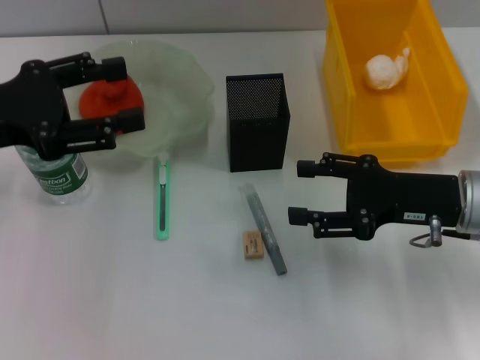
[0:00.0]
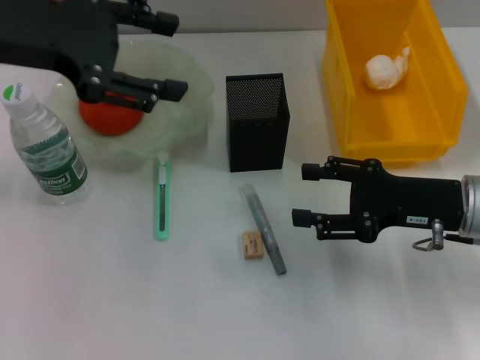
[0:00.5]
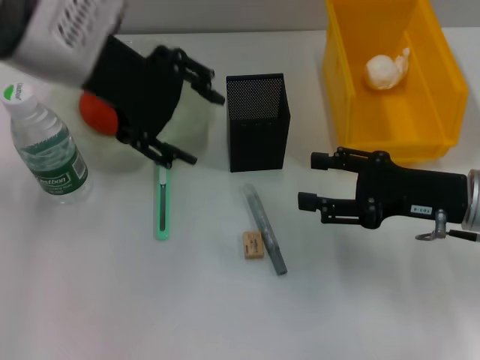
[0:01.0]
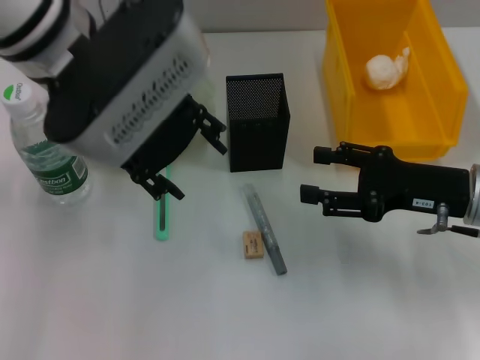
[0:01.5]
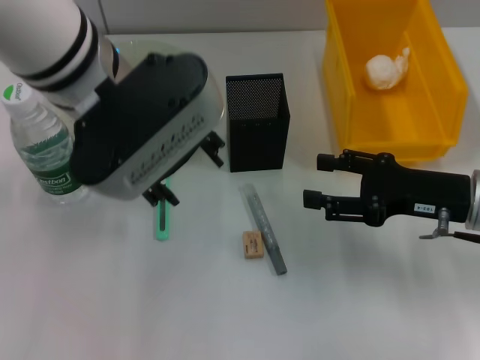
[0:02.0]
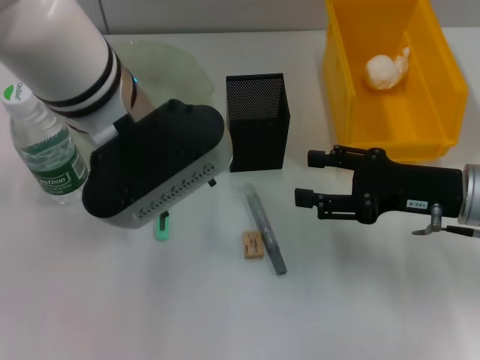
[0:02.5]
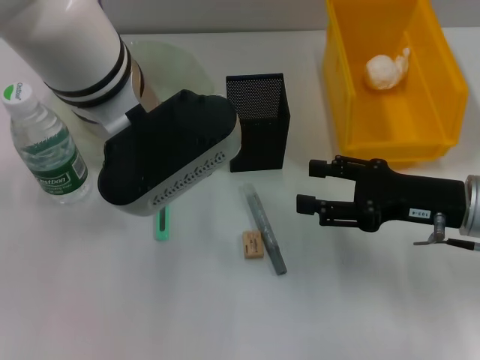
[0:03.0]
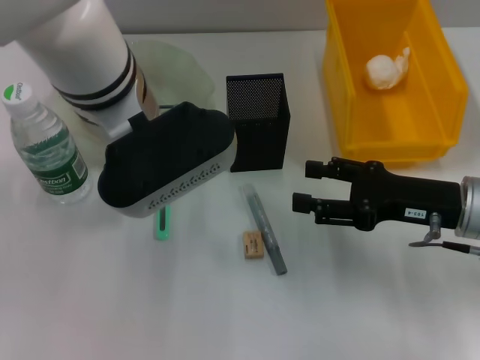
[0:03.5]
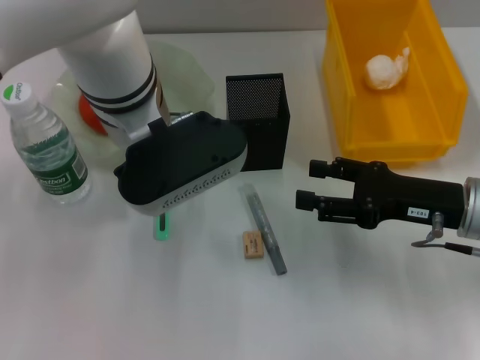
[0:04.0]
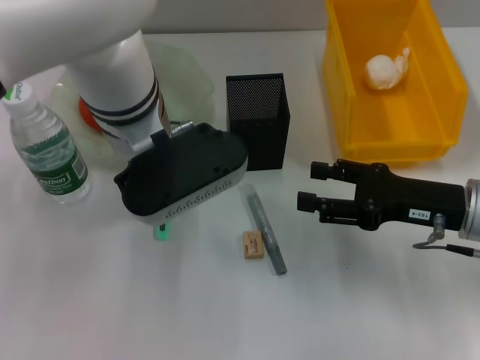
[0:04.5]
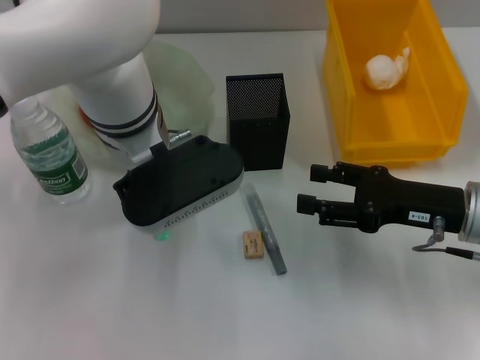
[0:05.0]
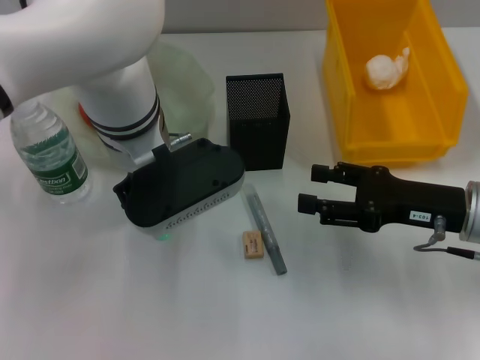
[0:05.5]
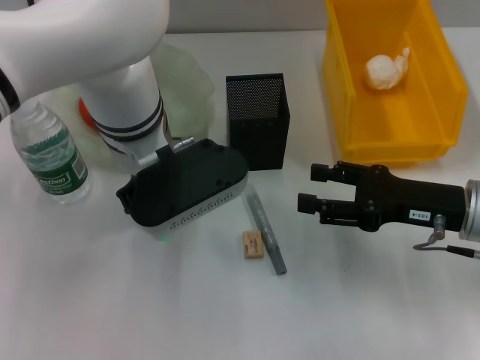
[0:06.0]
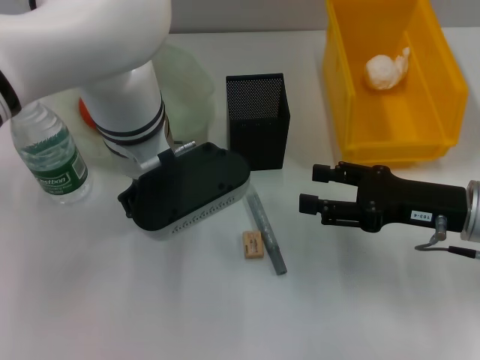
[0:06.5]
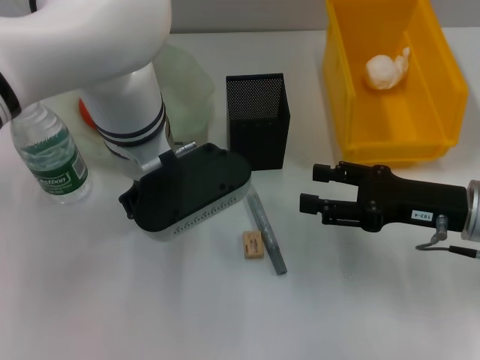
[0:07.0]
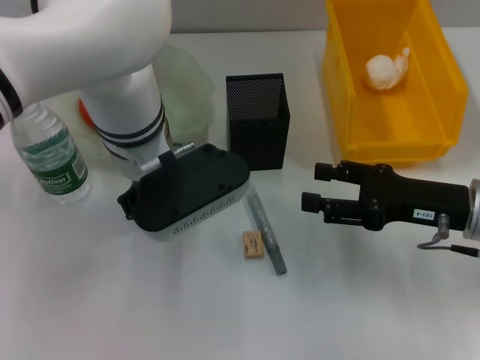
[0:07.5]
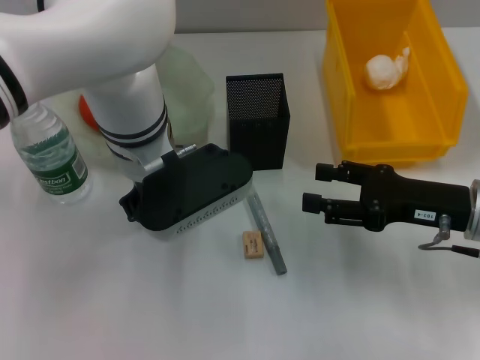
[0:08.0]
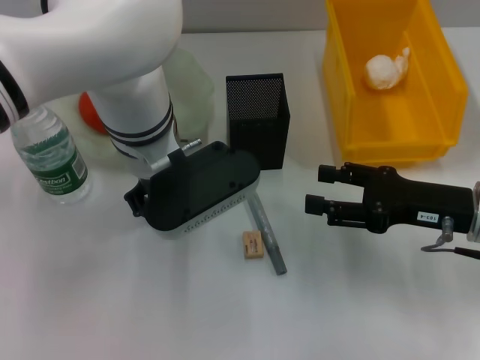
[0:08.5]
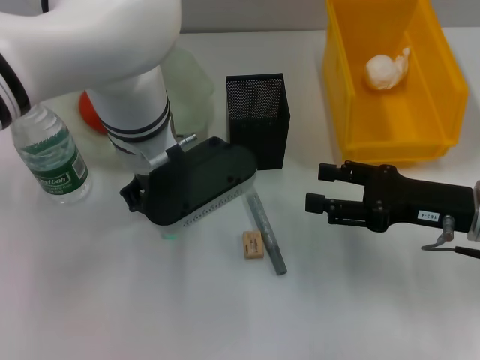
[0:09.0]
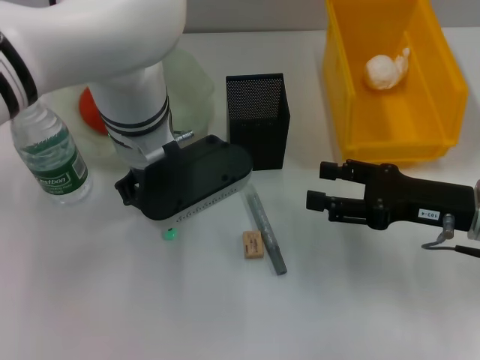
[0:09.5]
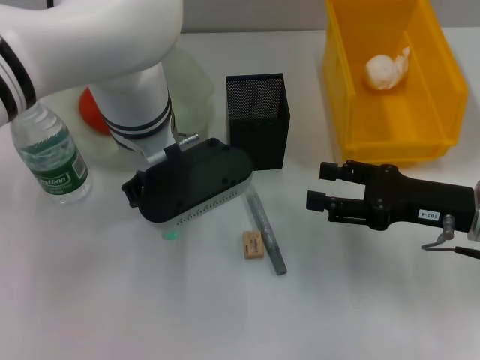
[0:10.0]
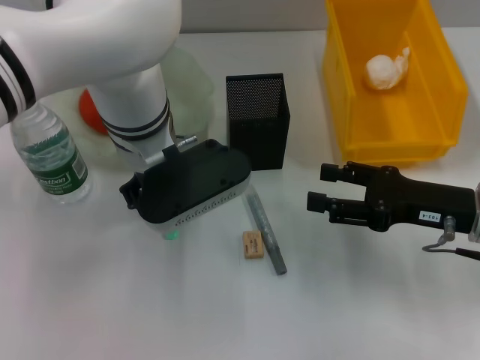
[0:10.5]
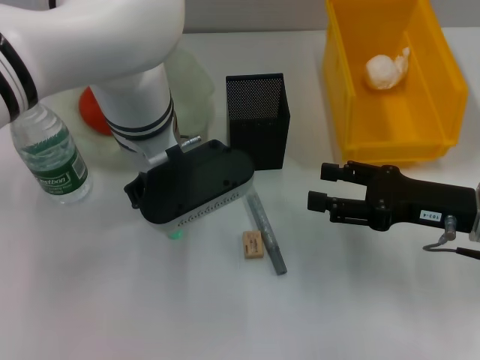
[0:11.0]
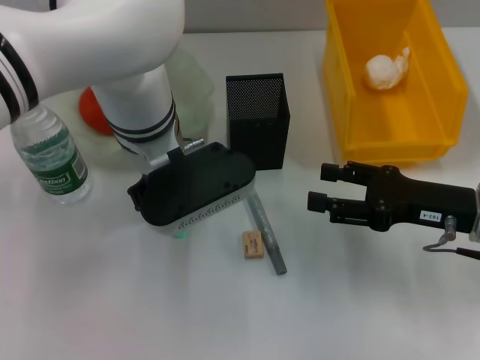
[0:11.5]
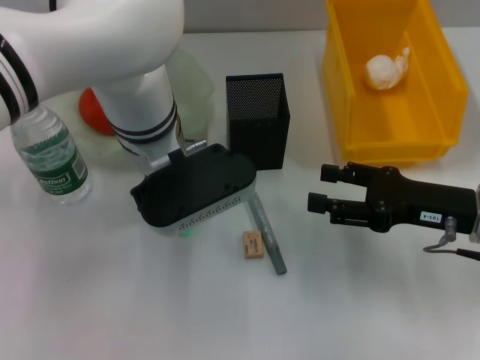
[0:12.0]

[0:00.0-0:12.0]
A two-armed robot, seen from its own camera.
0:00.0 to 0:02.0: The left gripper is displaced to the right by roughly 20 cm.
0:02.0 to 0:04.0: The left gripper changes place by about 5 cm.
0:04.0 to 0:06.0: The left gripper closes up.
0:06.0 to 0:10.0: Neither gripper changes place.
0:10.0 to 0:12.0: Neither gripper changes place.

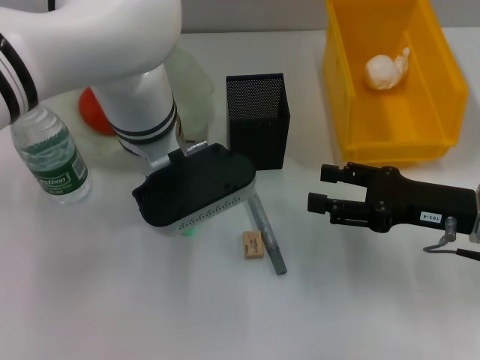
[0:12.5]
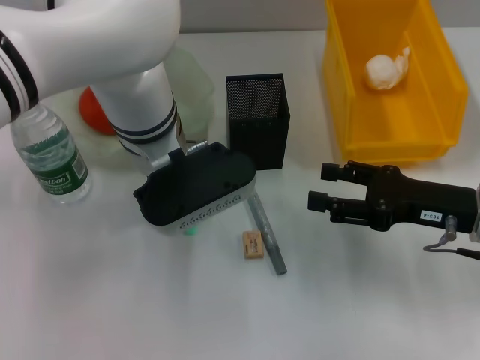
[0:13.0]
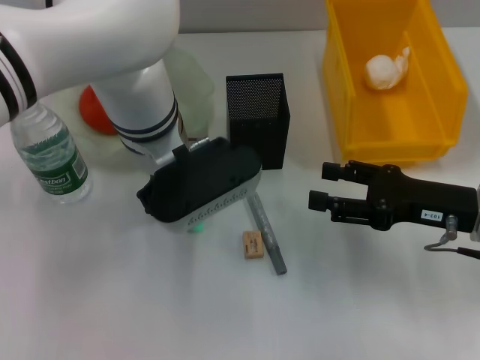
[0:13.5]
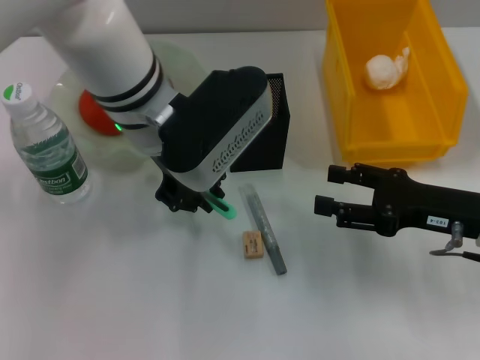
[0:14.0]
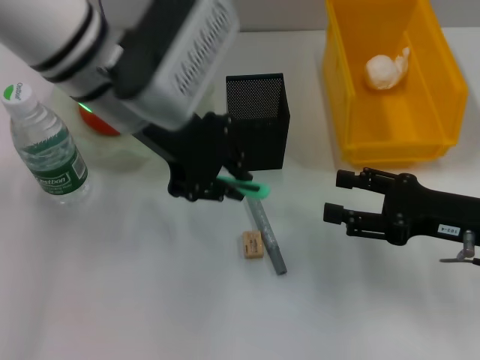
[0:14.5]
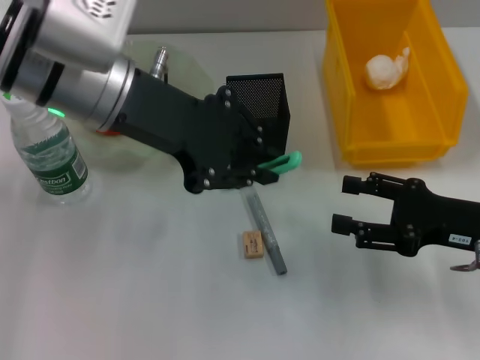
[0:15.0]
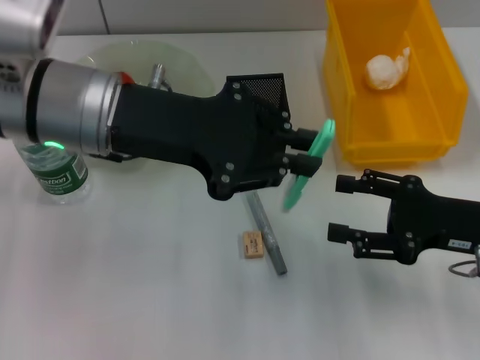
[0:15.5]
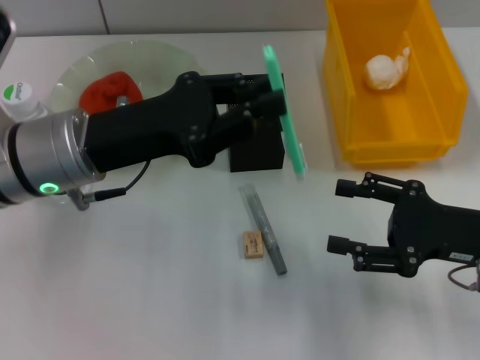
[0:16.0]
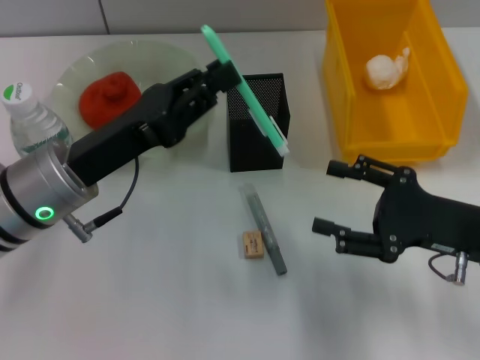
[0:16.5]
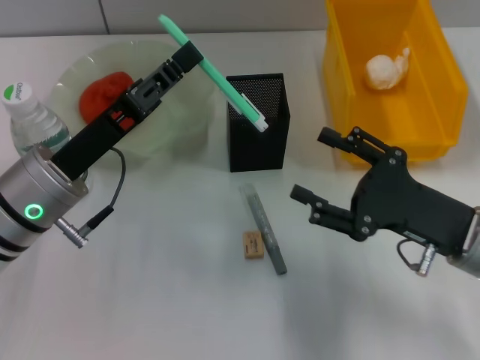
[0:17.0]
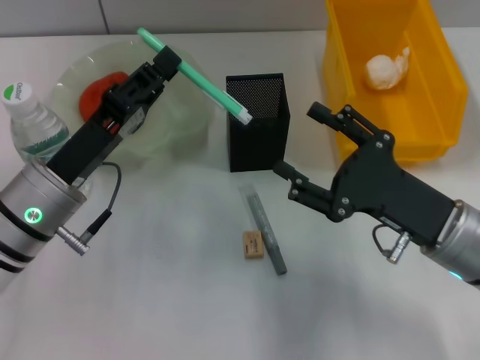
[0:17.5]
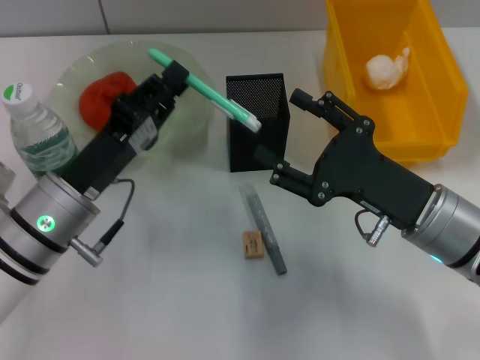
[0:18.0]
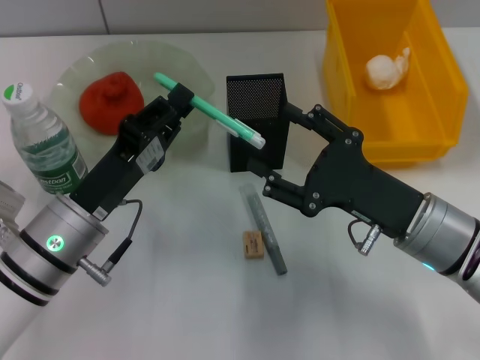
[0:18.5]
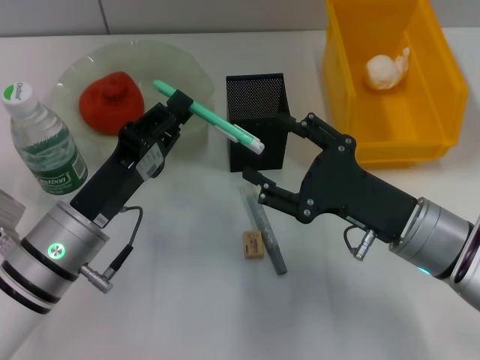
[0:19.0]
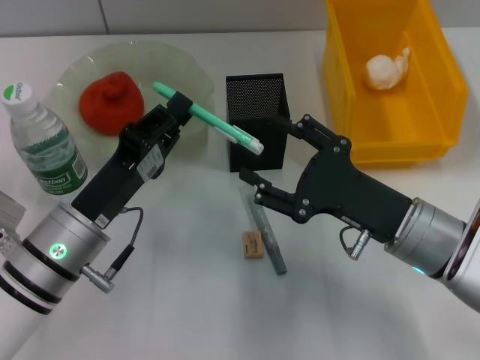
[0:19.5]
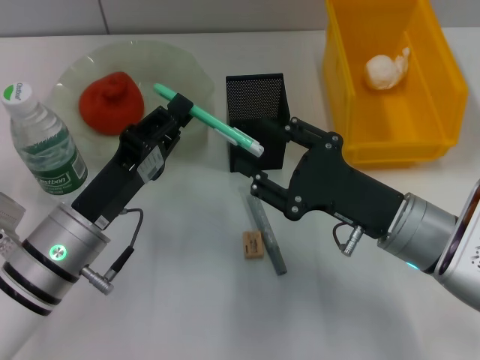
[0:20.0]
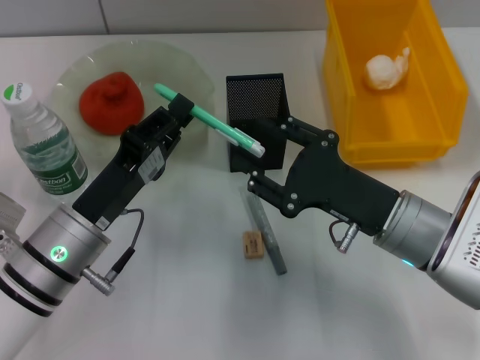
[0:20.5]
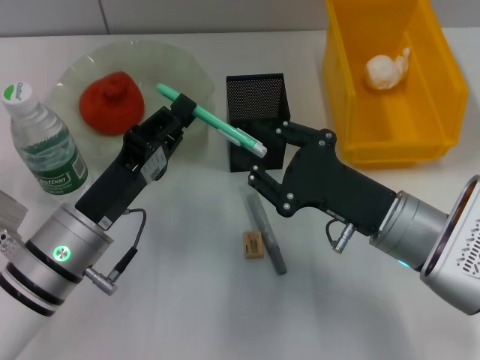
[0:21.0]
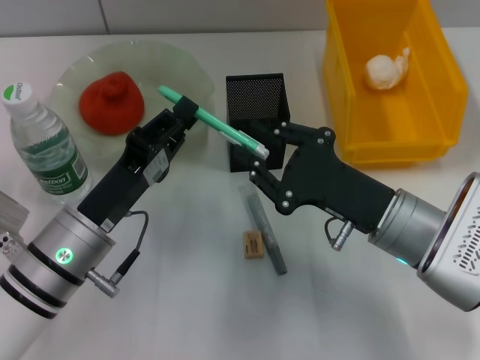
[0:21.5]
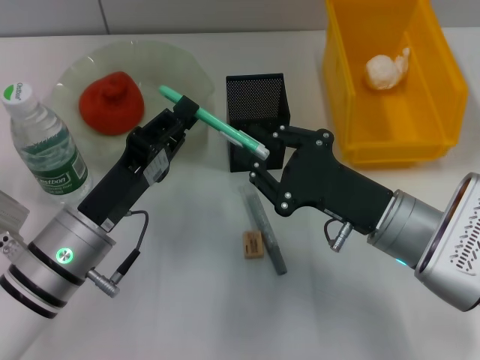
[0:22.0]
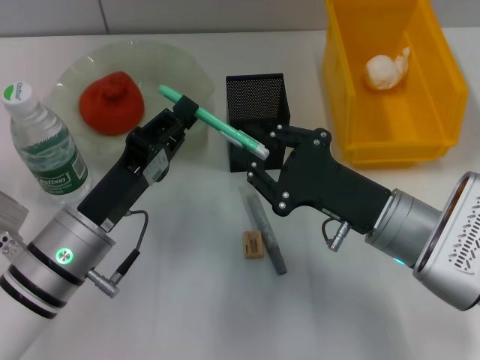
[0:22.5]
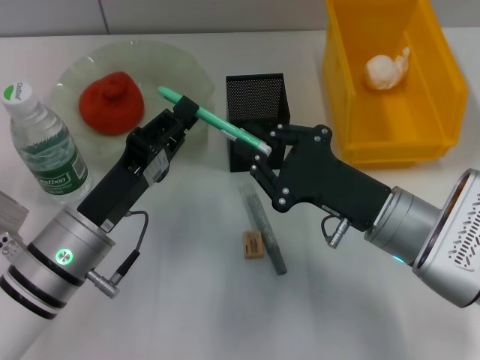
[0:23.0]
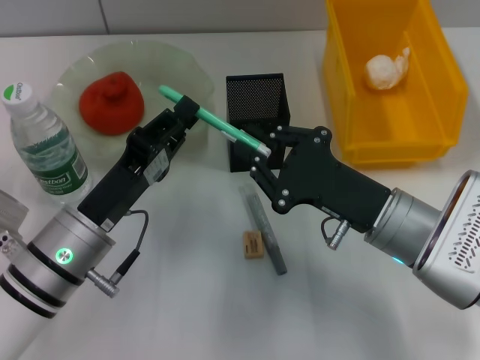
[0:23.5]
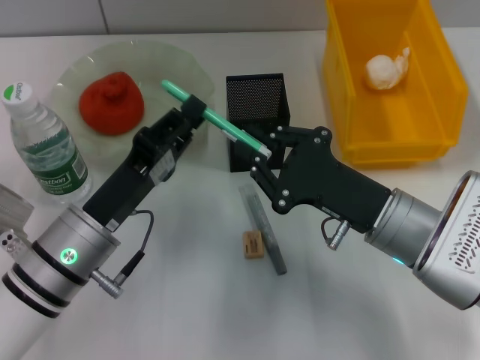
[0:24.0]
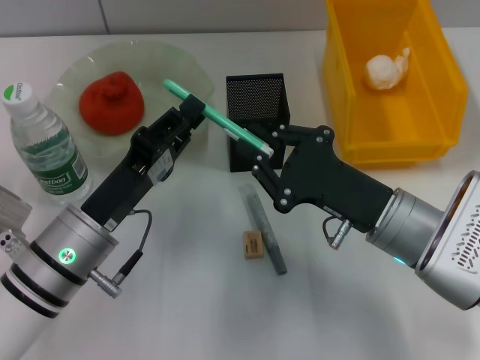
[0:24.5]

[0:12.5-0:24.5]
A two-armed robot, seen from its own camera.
0:12.5 to 0:14.5: The left gripper shifts some 10 cm upward.
0:14.5 to 0:16.5: The left gripper heads downward, to the left and backward, covering about 15 cm.
0:16.5 to 0:18.5: The right gripper is displaced to the left by approximately 5 cm. Meanwhile the left gripper is displaced downward by some 5 cm.
0:18.5 to 0:20.5: The grippers make only small movements.
0:20.5 to 0:22.5: The right gripper closes its fingers.
0:22.5 to 0:24.5: Both grippers stay put.

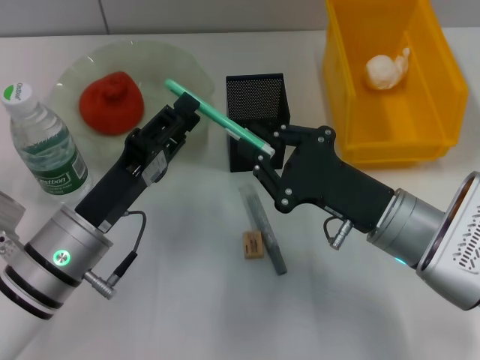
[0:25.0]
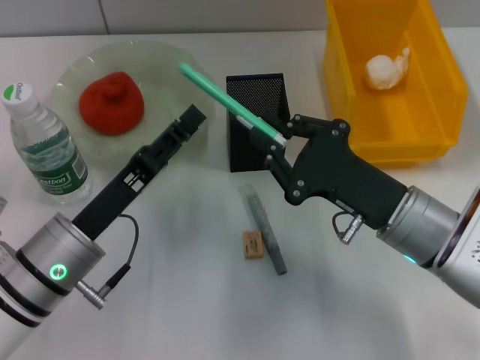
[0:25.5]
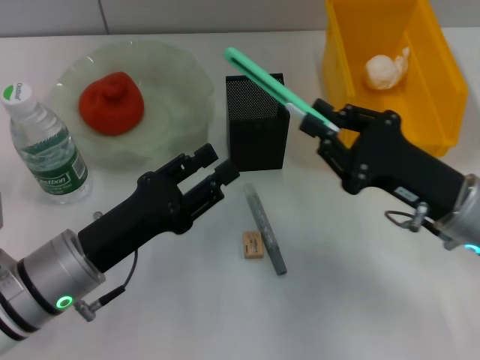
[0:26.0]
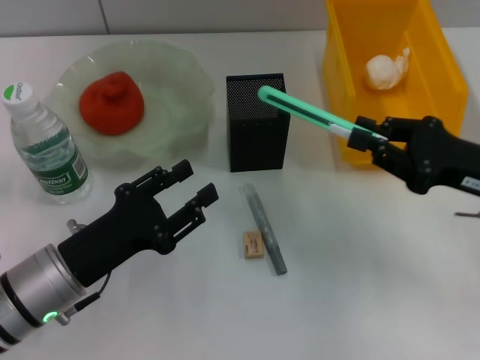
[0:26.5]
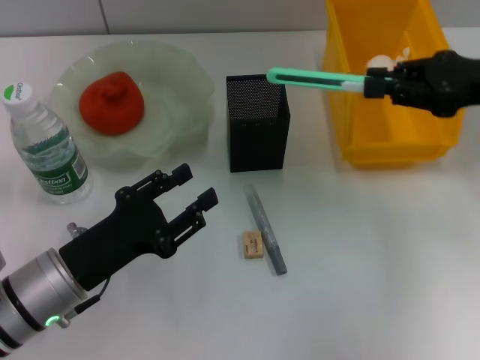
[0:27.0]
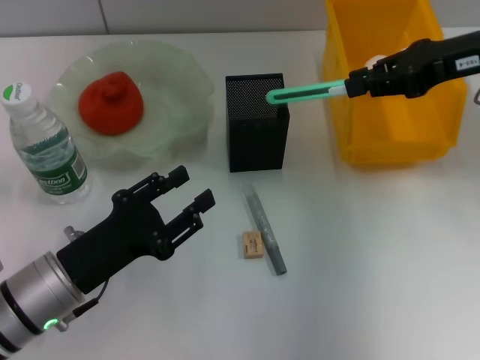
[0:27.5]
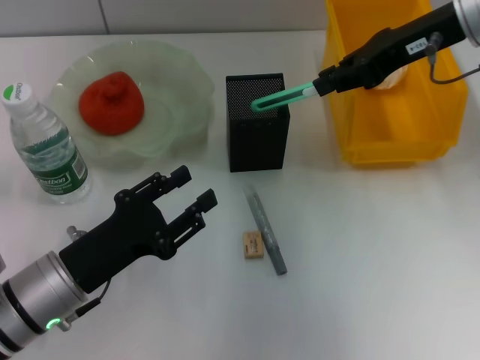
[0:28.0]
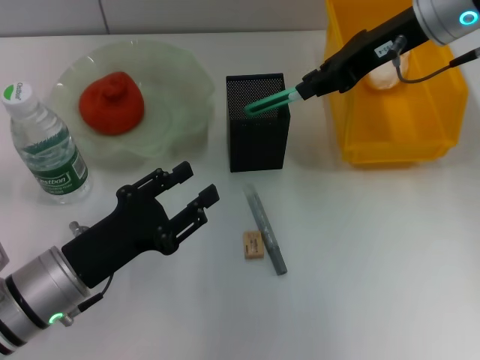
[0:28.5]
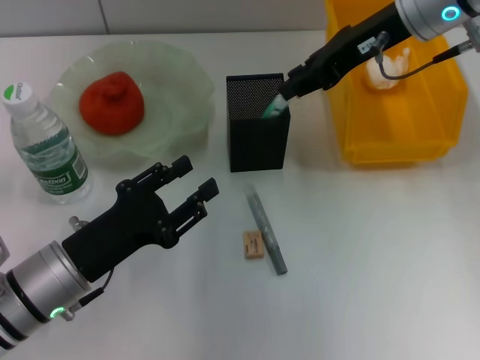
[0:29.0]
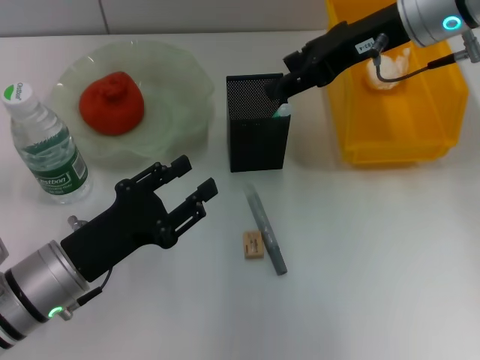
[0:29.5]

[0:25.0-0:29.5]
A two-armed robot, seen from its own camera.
Step, 0:25.0 to 0:29.0: Place the blue utility knife into the pen holder with the right hand.
0:25.0 to 0:27.0: The right gripper goes some 20 cm to the right, upward and forward. The left gripper opens up.
0:27.0 to 0:29.5: The right gripper shifts about 15 cm to the left and forward, and opens its fingers.
